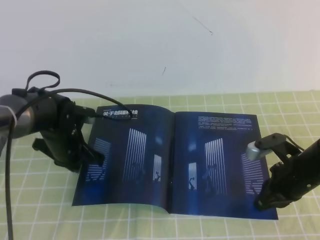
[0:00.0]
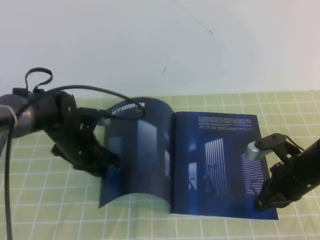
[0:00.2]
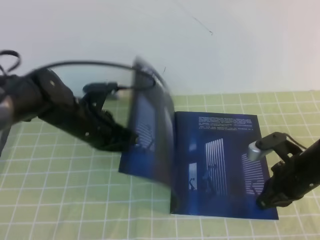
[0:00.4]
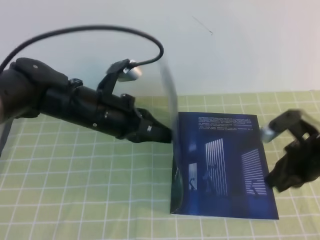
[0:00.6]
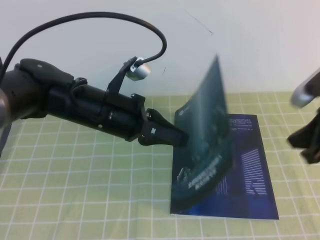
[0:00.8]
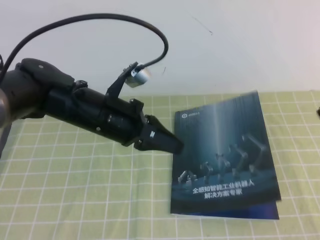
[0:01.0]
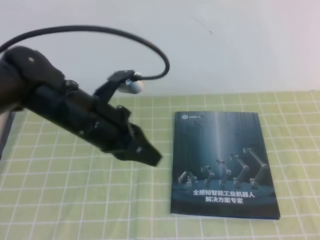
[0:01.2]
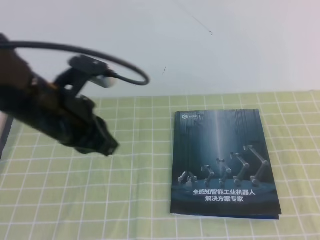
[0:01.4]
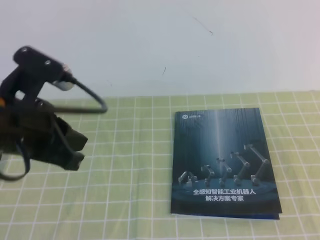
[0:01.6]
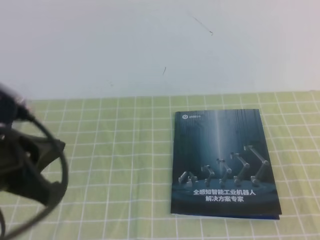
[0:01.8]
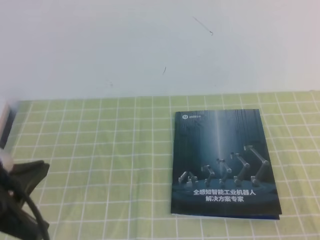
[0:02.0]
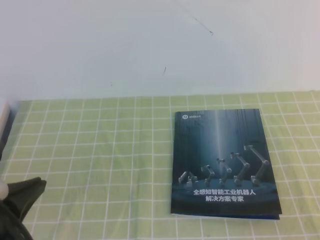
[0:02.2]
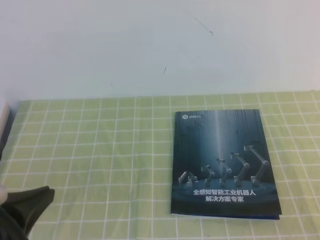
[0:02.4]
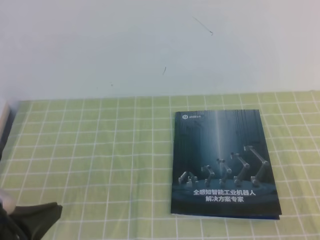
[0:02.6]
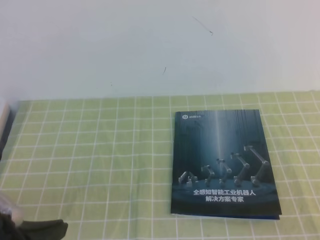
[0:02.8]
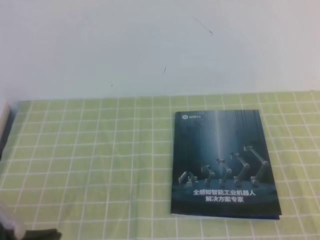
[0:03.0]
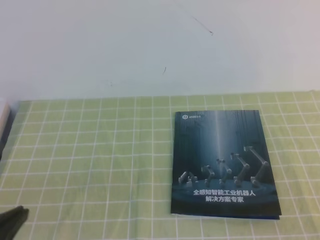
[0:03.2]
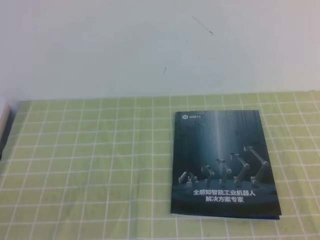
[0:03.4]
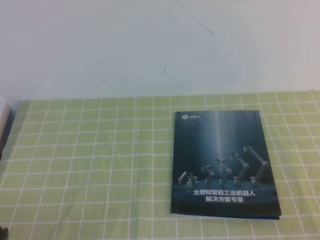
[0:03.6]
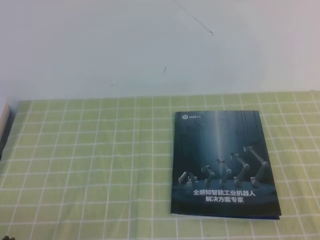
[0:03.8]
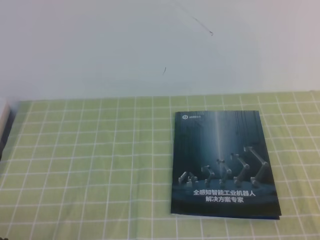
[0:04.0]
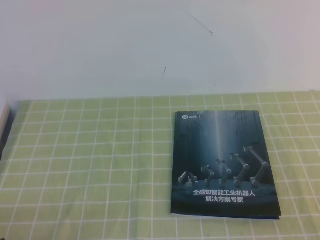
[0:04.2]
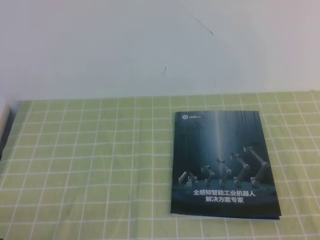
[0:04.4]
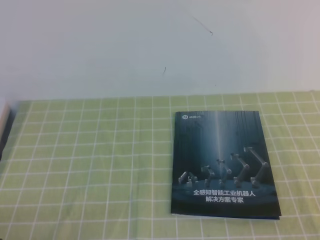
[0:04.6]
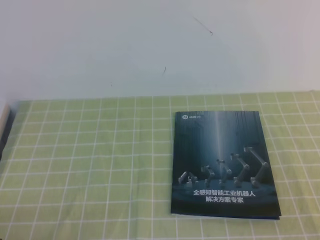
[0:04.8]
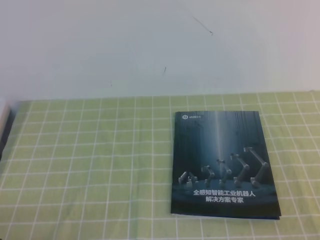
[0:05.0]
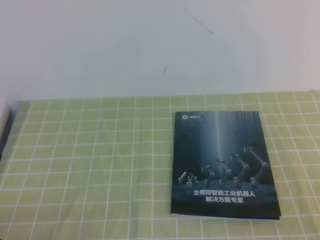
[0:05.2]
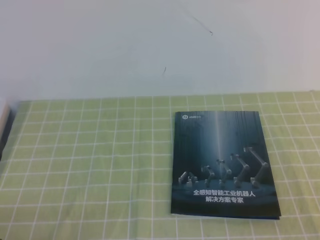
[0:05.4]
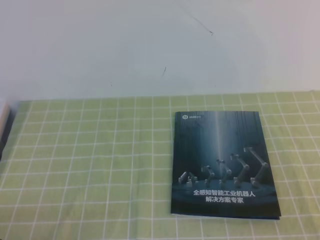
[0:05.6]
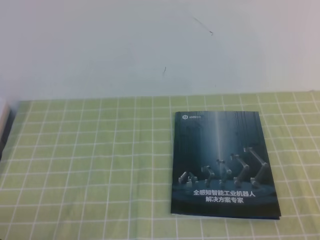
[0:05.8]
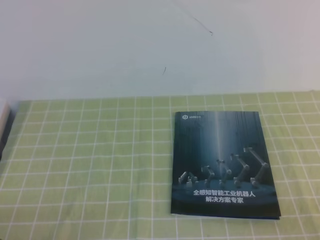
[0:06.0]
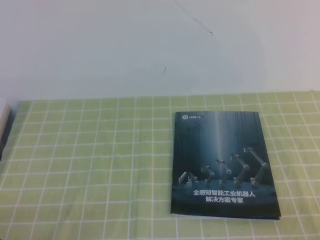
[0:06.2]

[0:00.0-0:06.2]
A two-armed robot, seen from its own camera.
Task of the whole recording: on the green tablecloth, hold the book with one hand and close it with the other.
Step, 0:00.0 to 0:06.2: Close the open book.
0:00.0 to 0:01.6: The grippers both shift upward and backward by approximately 25 cm.
0:01.6 to 0:03.2: The left gripper moves backward, downward and to the left, roughly 20 cm, while the right gripper is displaced downward and backward by approximately 10 cm.
0:03.2 to 0:04.6: The left gripper shifts roughly 10 cm downward.
